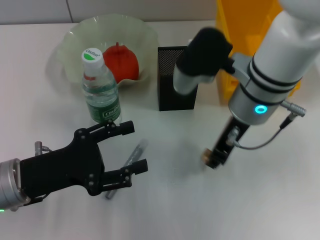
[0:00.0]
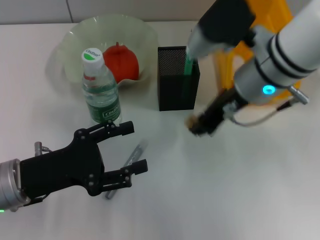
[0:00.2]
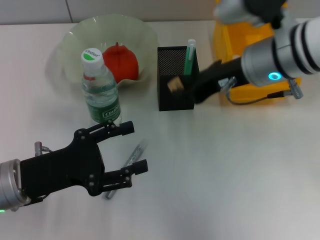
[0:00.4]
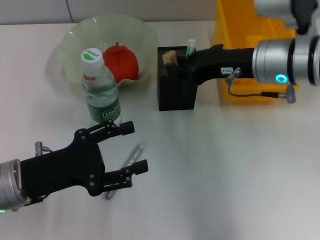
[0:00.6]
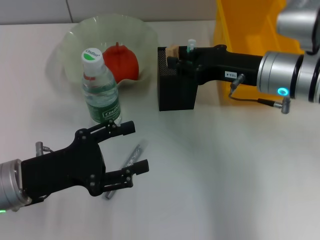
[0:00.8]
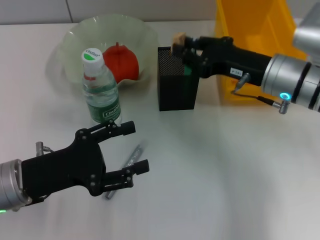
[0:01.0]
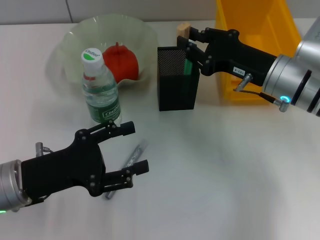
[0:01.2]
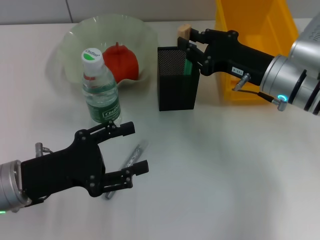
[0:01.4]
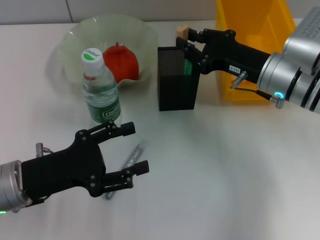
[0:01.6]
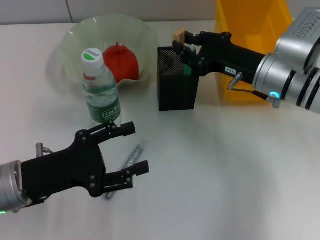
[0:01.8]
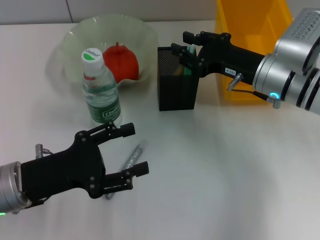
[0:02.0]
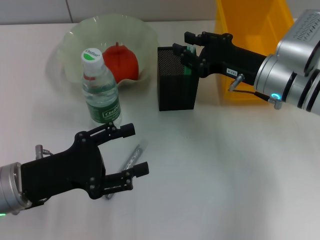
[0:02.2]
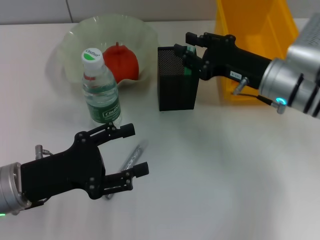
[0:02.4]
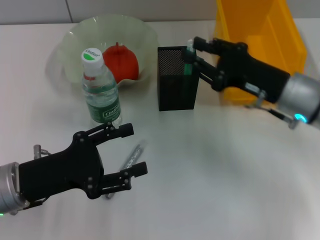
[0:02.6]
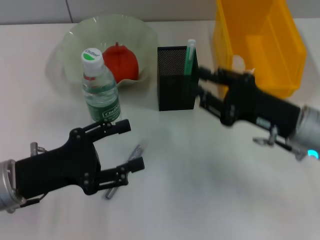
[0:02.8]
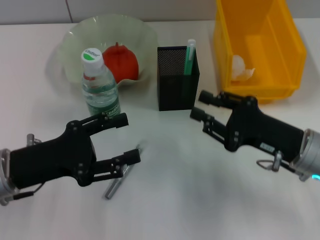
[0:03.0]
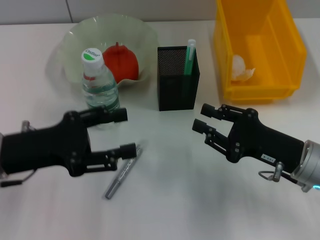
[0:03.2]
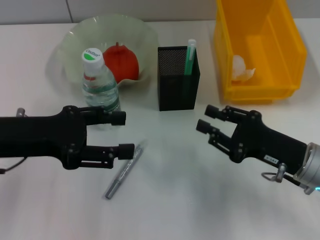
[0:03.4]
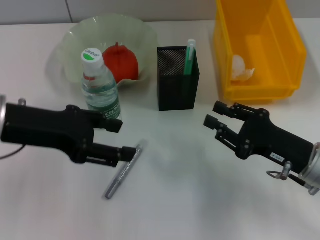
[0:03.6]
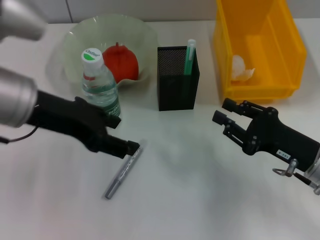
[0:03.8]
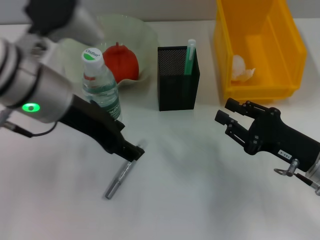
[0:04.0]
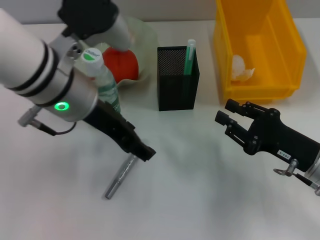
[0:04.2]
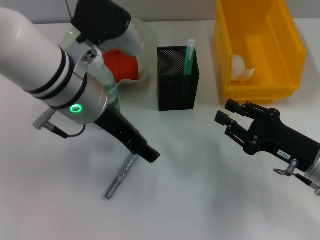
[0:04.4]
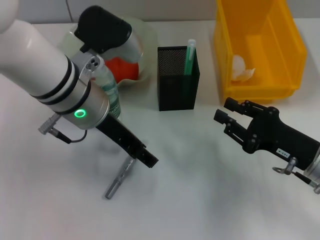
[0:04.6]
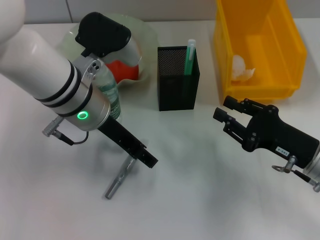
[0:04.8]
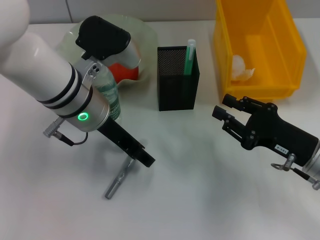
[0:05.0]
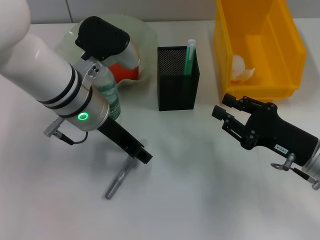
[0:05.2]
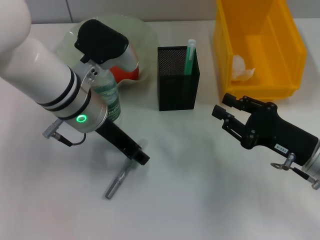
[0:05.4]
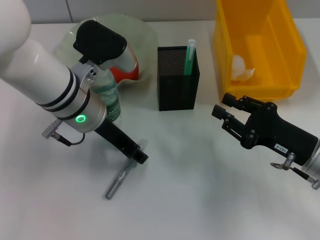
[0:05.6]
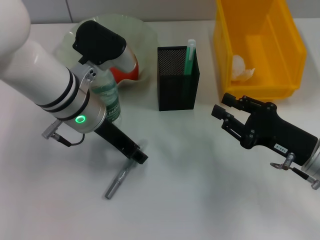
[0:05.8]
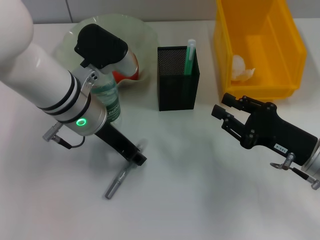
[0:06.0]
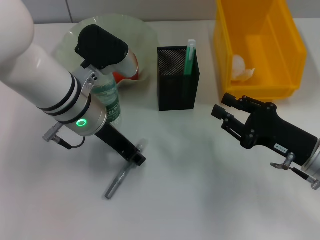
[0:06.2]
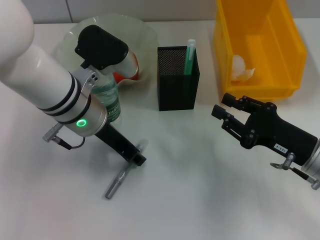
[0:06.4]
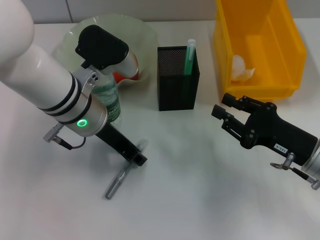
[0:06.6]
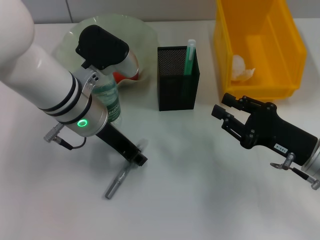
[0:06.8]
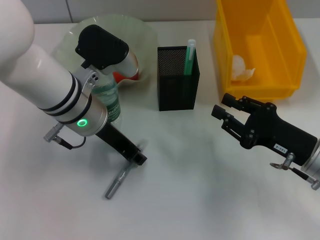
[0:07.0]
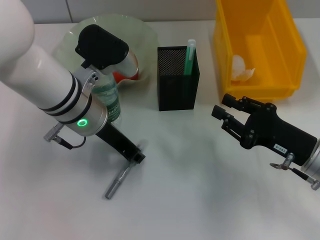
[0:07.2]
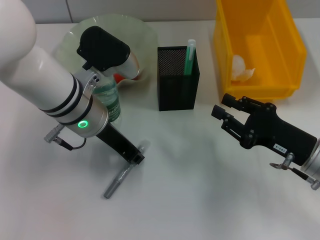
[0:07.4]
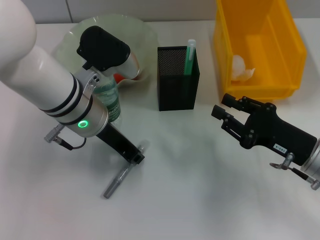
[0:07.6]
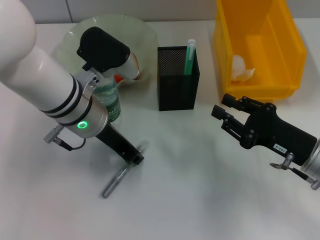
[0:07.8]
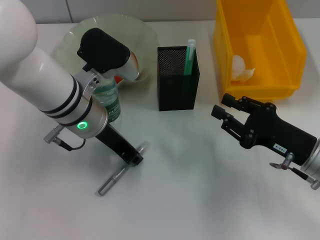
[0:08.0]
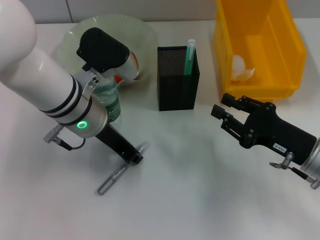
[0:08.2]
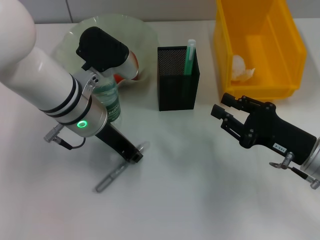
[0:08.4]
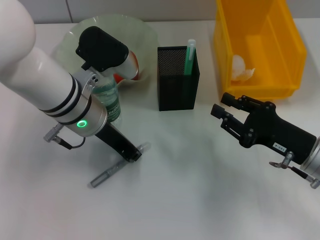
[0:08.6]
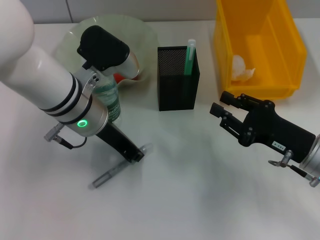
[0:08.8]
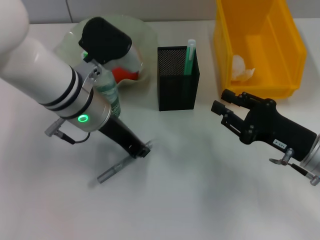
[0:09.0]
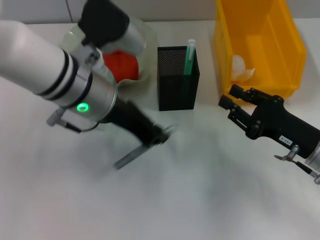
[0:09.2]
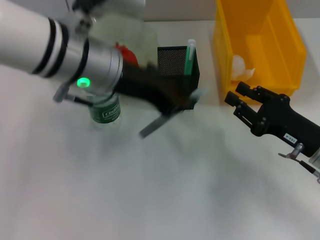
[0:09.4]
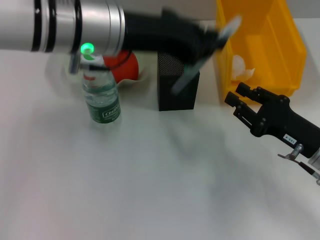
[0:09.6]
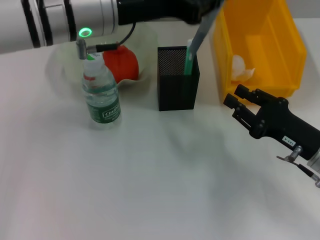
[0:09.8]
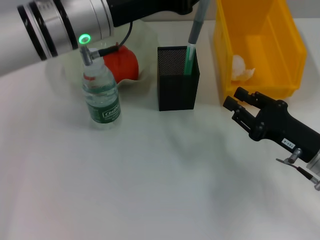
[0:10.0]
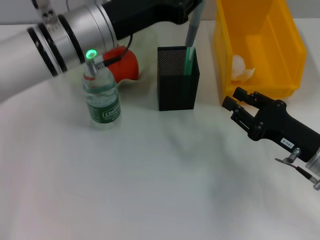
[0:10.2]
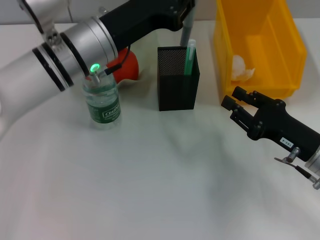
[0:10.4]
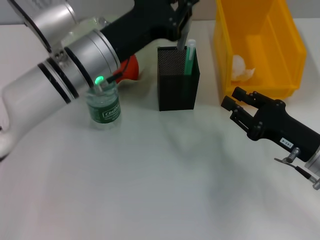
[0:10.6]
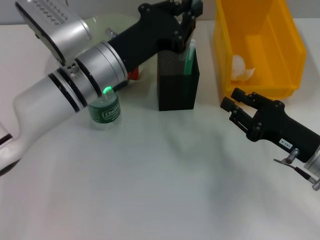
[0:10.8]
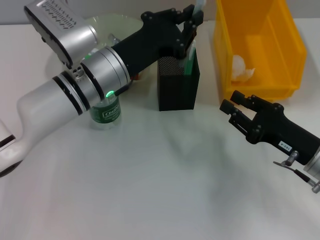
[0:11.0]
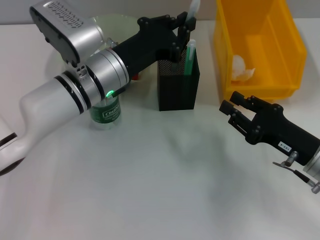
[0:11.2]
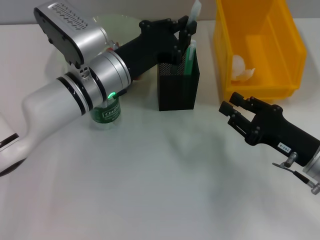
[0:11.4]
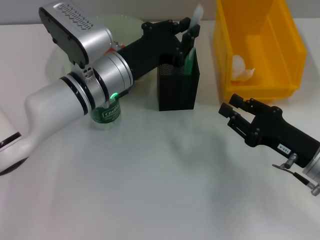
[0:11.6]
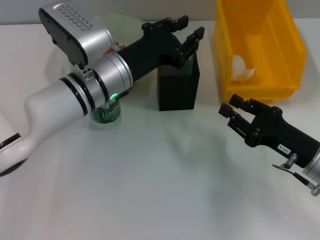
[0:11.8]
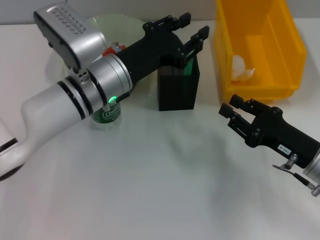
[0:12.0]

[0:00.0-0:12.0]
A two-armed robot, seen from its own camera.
Step, 0:00.0 to 0:02.0: Put the eraser into the pen holder with the right hand.
Step, 0:02.2 to 0:06.2: Grab the gray glue with the left hand.
Step, 0:06.4 to 0:11.8: Place the gray glue into the pen holder with the left hand.
0:00.0 to 0:01.6: The right gripper heads to the right and downward, covering approximately 10 cm.
0:01.6 to 0:03.0: The right gripper heads backward, covering some 10 cm.
0:03.0 to 0:04.4: The left gripper moves to the right, upward and forward, about 20 cm.
0:04.4 to 0:06.0: The left gripper is displaced downward by some 5 cm.
0:06.0 to 0:07.6: The left gripper closes up.
0:07.6 to 0:09.0: Both grippers stay put.
0:09.0 to 0:10.4: The left gripper goes upward and returns, about 10 cm each way.
0:10.4 to 0:12.0: The left gripper opens its fingers.

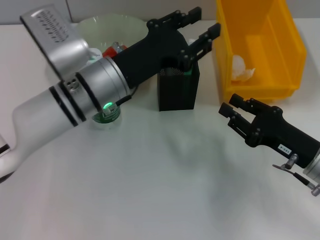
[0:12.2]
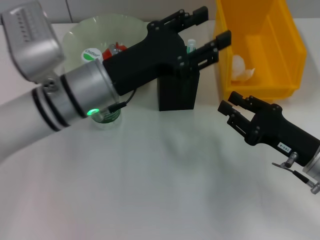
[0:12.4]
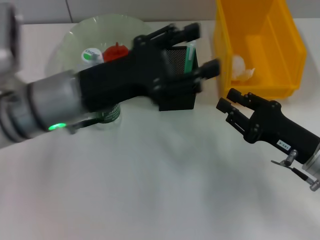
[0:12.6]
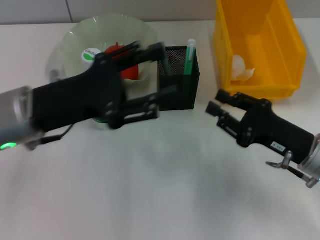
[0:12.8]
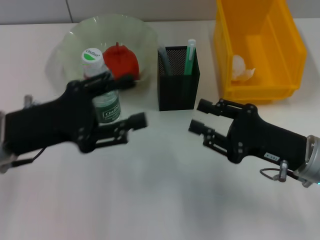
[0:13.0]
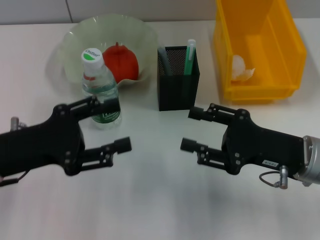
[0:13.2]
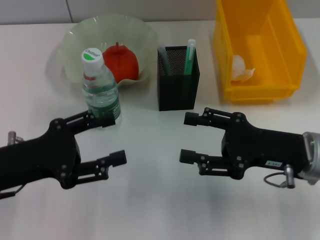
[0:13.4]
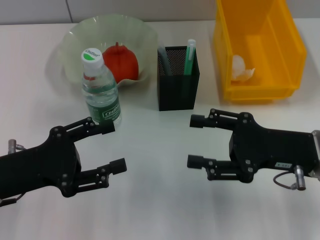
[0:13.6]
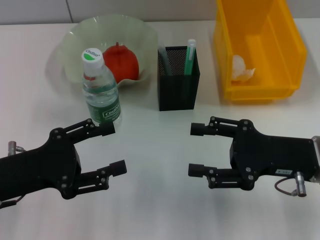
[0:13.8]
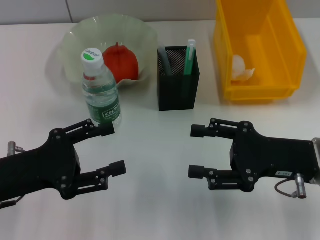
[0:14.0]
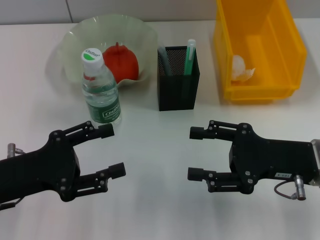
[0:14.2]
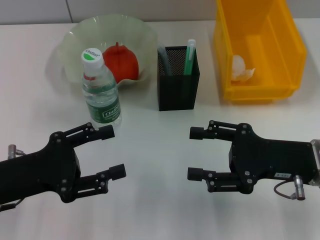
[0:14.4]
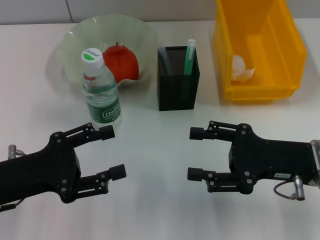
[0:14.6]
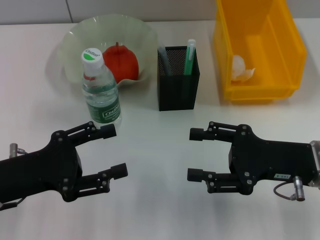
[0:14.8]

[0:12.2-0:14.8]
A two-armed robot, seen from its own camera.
0:12.2 to 0:13.4: The right gripper heads upward, covering some 5 cm, and opens up. The left gripper moves to the left and backward, roughly 20 cm, and opens its fingers.
0:13.4 to 0:14.8: The grippers stay close to where they were, moving slightly.
